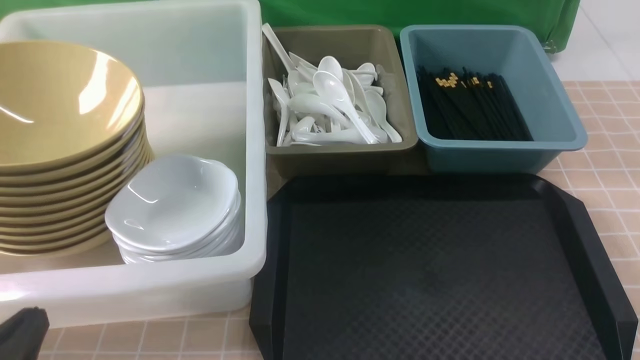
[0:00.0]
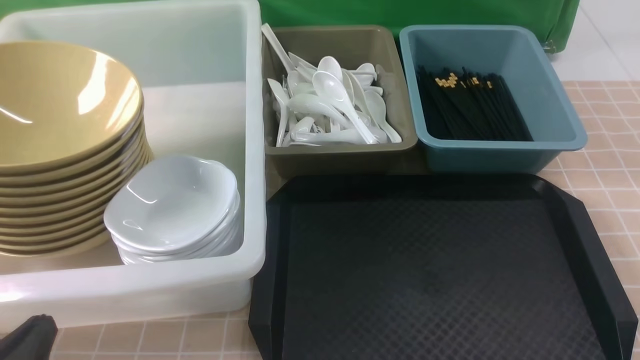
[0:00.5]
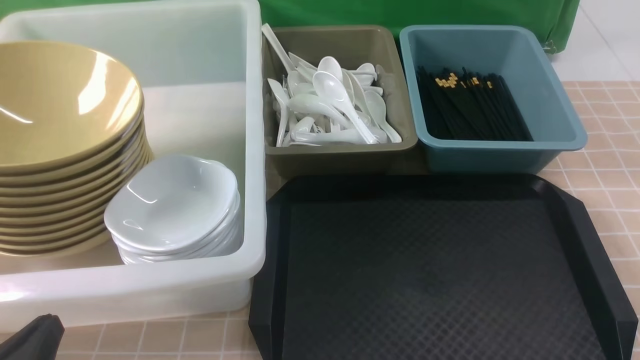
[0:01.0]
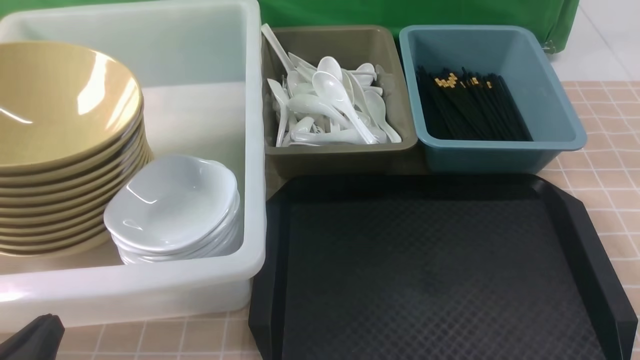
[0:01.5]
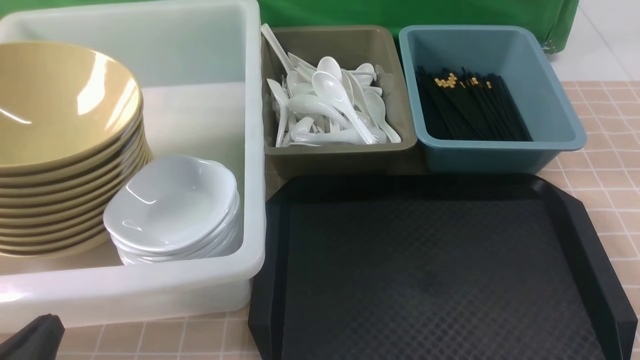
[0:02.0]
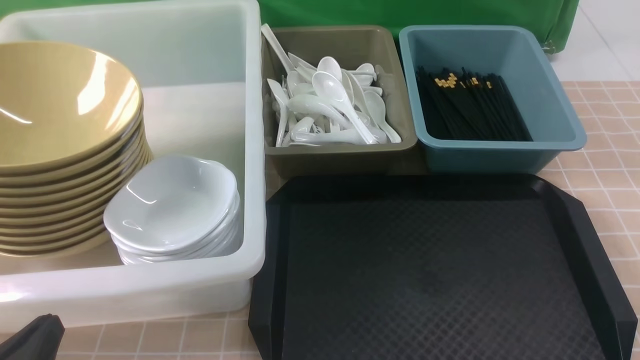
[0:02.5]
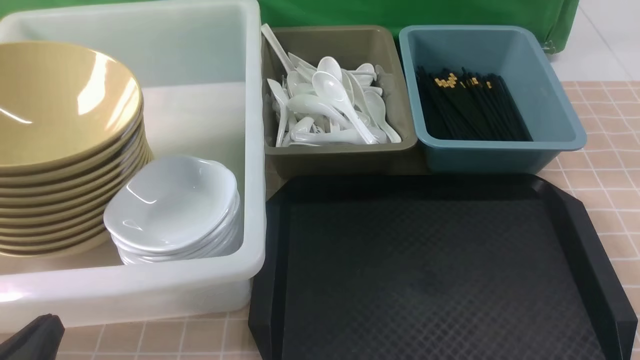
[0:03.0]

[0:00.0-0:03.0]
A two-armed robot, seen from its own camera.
Task of the whole recording: on brown table put chopsticks spoon bowls plates into blue grey white boxes.
0:00.0 to 0:01.5: The grippers make only small movements.
0:01.5 to 0:03.0: Neither gripper changes place.

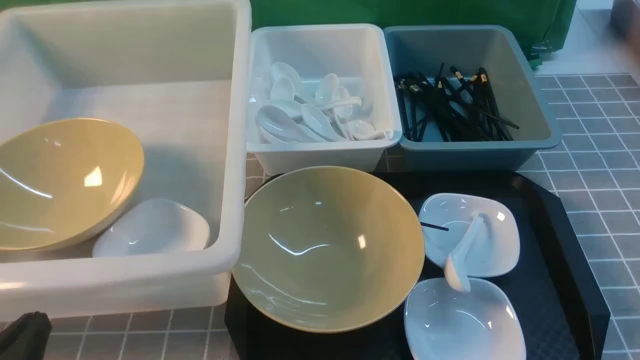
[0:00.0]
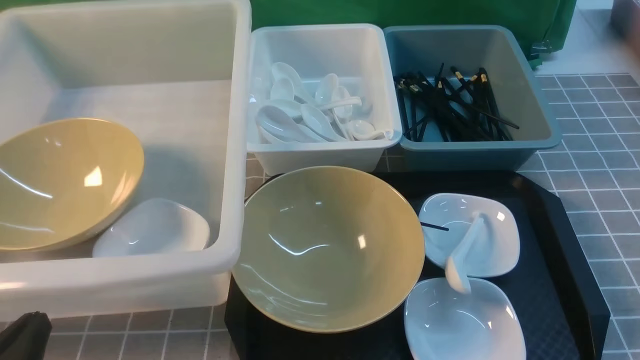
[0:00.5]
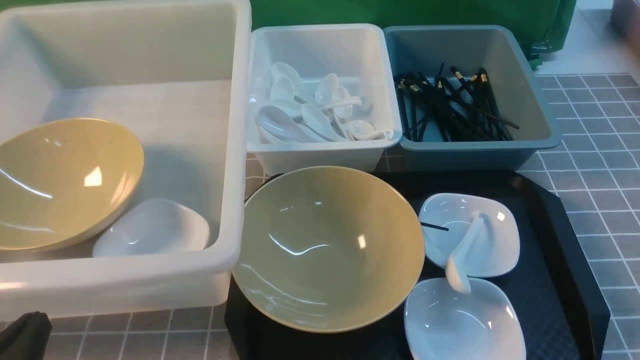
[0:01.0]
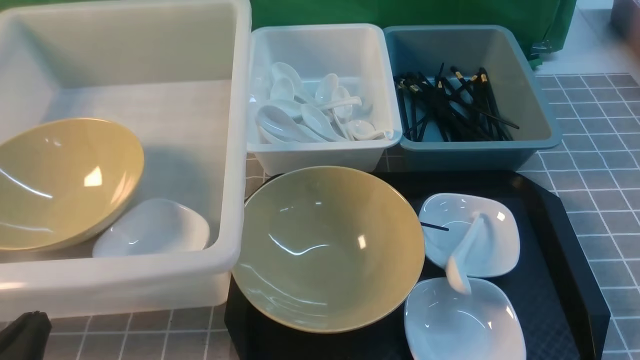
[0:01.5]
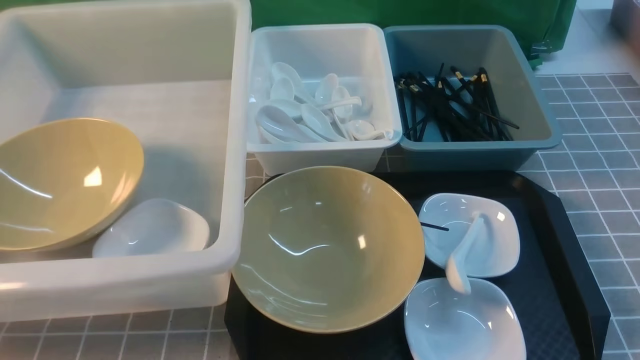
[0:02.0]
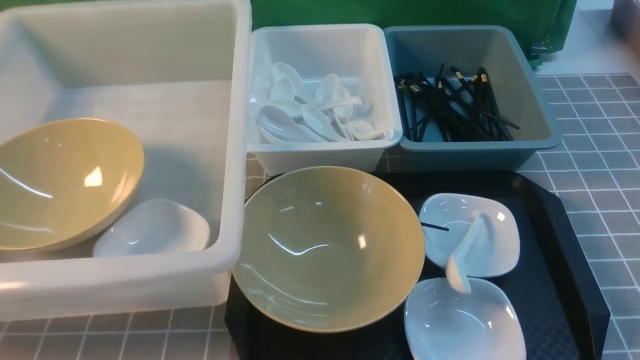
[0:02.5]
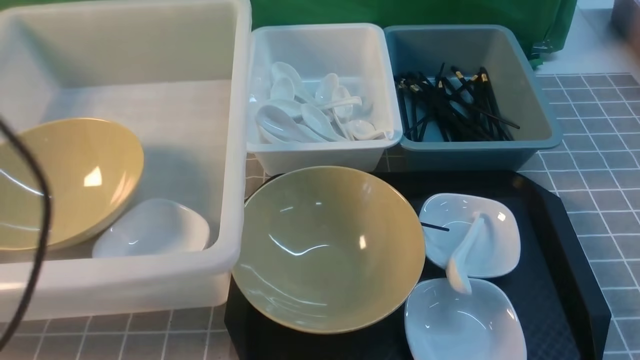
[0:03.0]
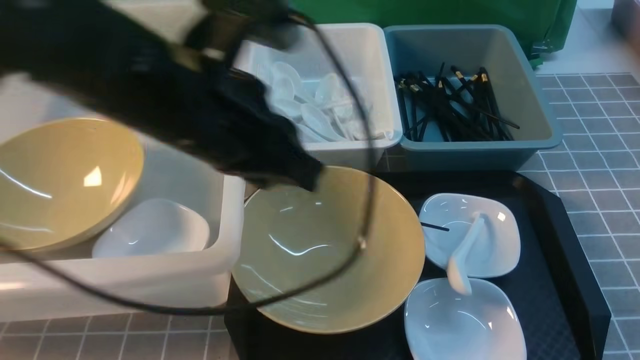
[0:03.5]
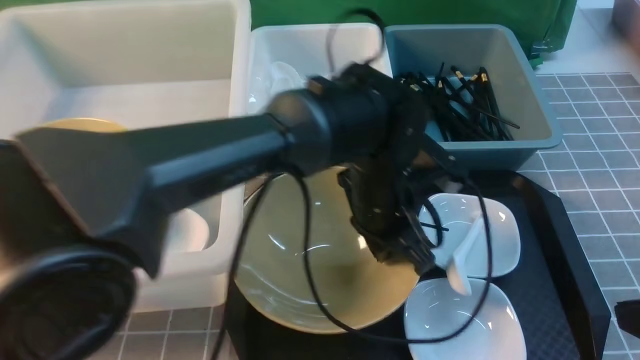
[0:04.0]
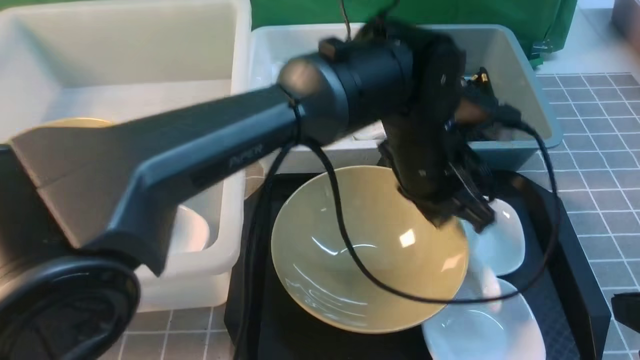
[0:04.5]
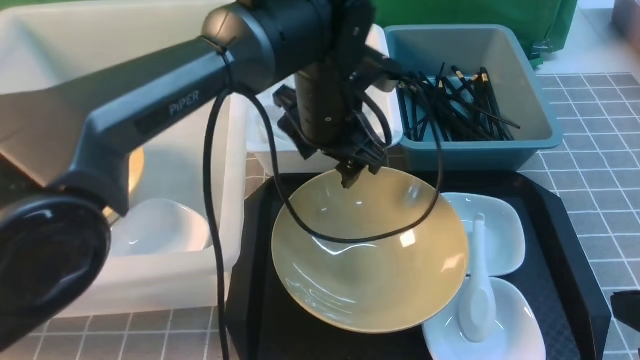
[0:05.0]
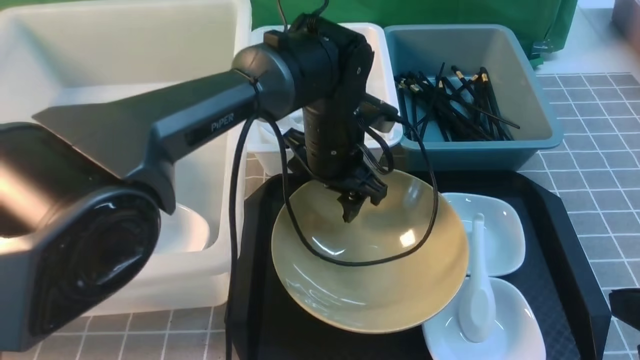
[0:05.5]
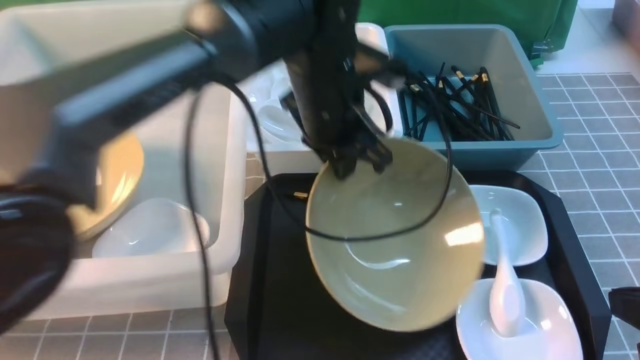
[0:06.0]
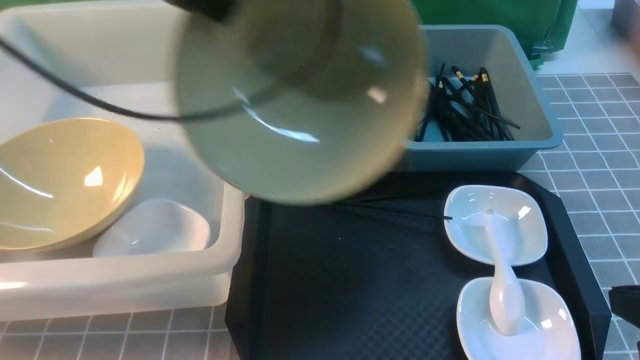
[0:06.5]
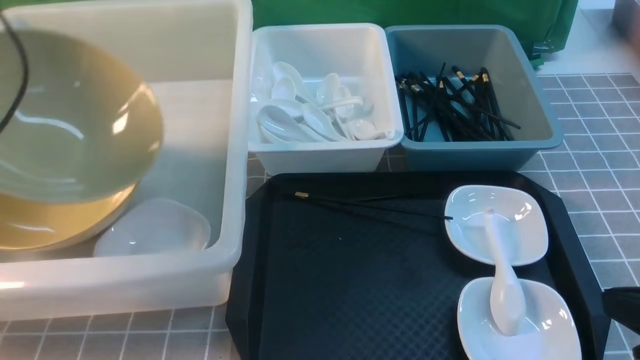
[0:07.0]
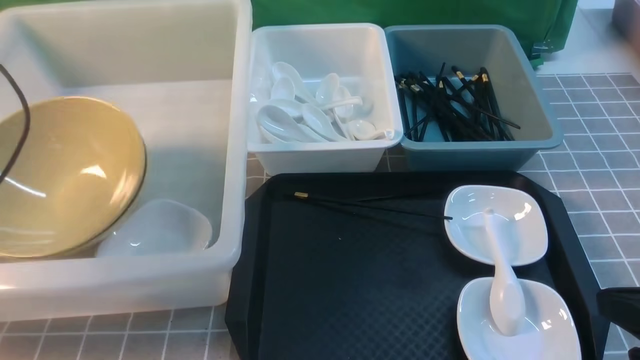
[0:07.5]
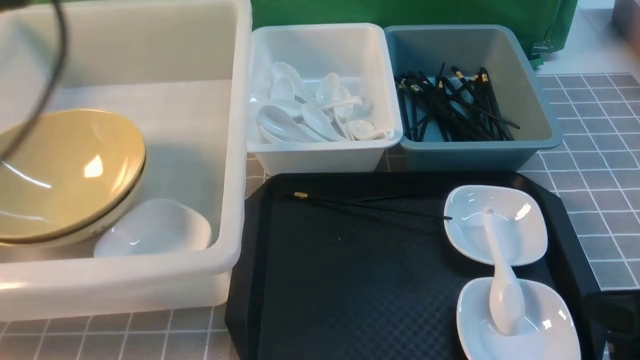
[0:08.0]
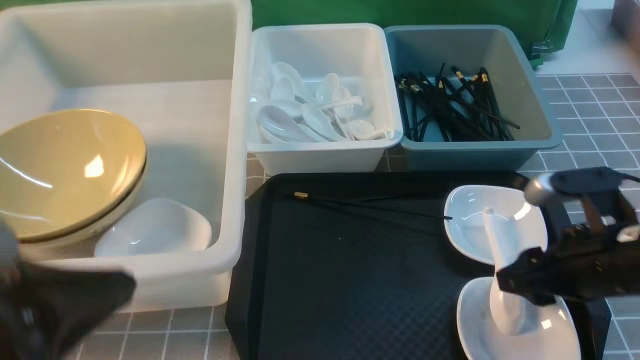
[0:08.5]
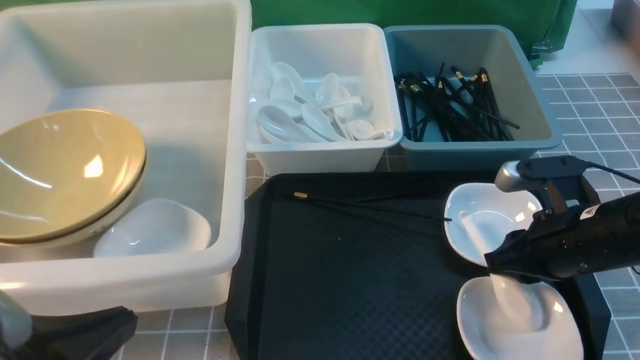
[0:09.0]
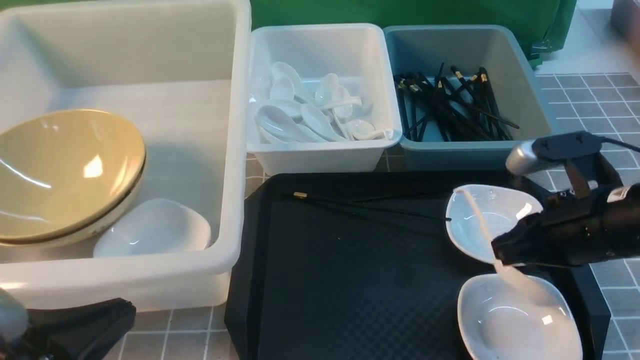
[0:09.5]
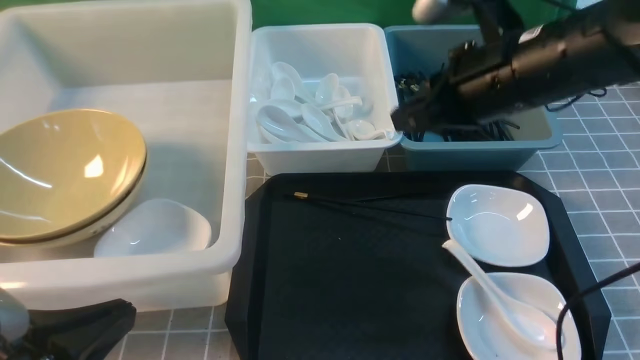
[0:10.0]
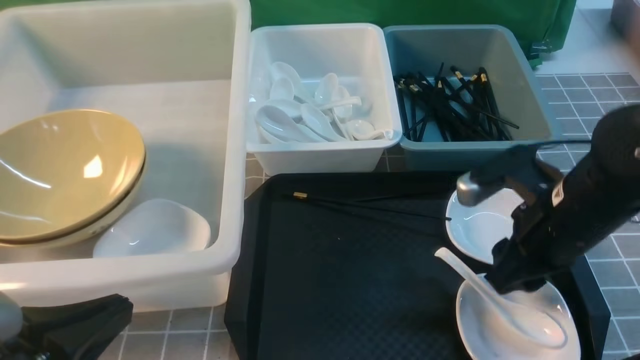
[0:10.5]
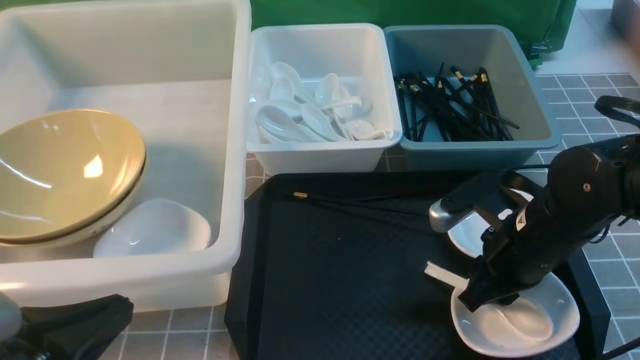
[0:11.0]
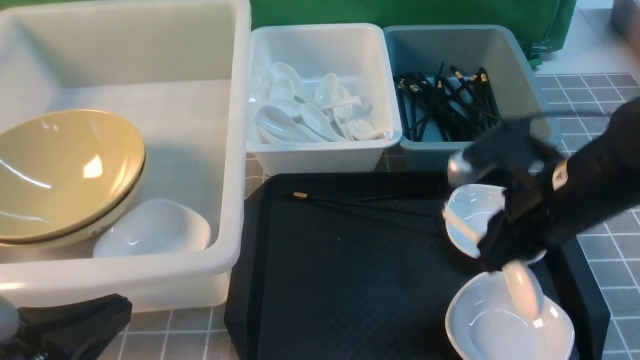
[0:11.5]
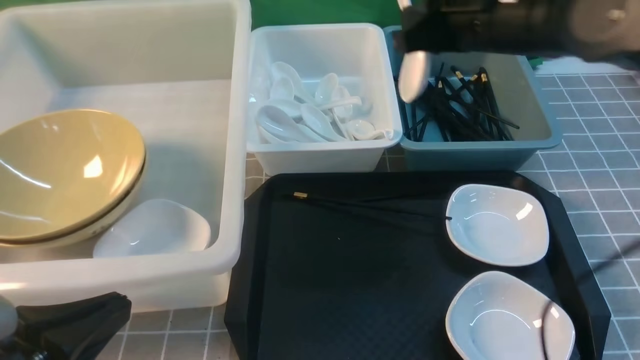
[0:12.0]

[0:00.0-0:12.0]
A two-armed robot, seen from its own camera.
Task of the whole recording: on grey table put chopsticks spoon bowls plates into blue grey white boxes.
Step, 0:00.0 to 0:06.0: use the left arm to grab the yellow noodle bowl on the left.
Step, 0:06.5 to 0:07.5: use the left arm to put the noodle bowl into the large storage box on the left.
Step, 0:08.0 to 0:11.0: use the right arm to grab the soup spoon in the middle.
0:02.0 to 0:04.0: The left gripper shifts approximately 40 cm to the right and forward. The right gripper heads forward, covering roughly 5 cm, moves about 10 cm upward and comes back, and closes its fingers.
0:04.0 to 0:06.0: The left gripper is displaced forward by approximately 5 cm, and opens and closes again.
0:06.0 to 0:08.0: The left gripper moves to the left, upward and backward, some 35 cm.
0:08.0 to 0:10.0: The left gripper moves downward, backward and to the right, about 25 cm, and closes; the right gripper shifts about 20 cm forward and to the left, and opens and closes again.
0:10.0 to 0:12.0: The right gripper reaches some 15 cm downward, then returns, and opens, then closes again.

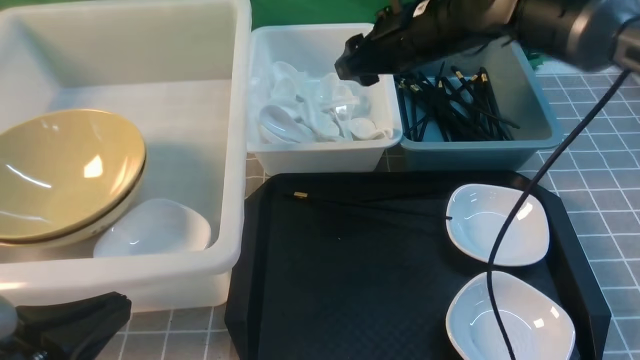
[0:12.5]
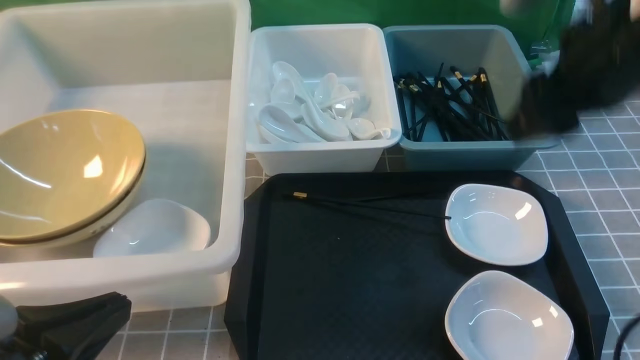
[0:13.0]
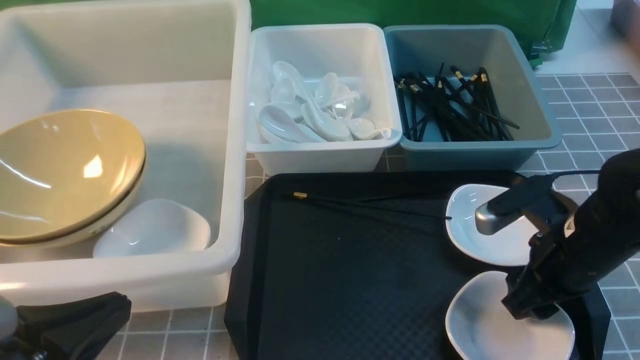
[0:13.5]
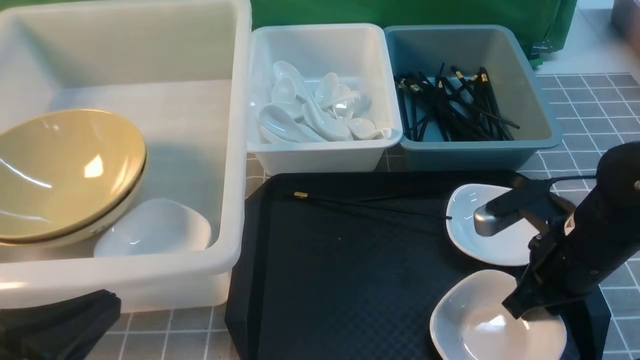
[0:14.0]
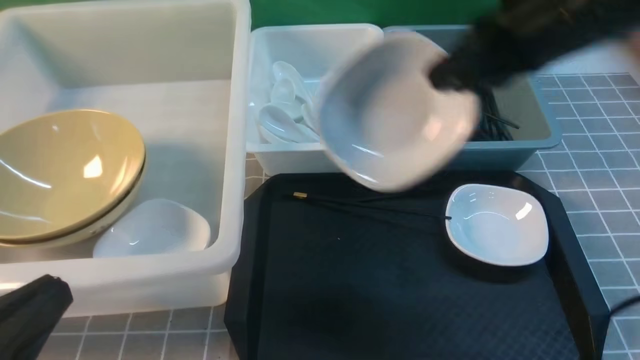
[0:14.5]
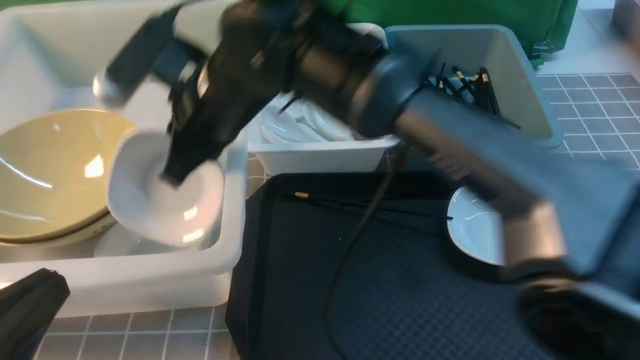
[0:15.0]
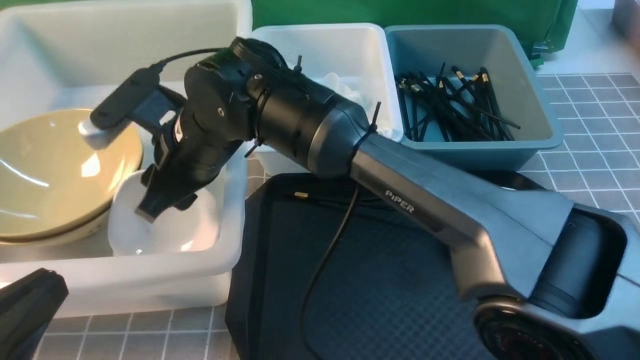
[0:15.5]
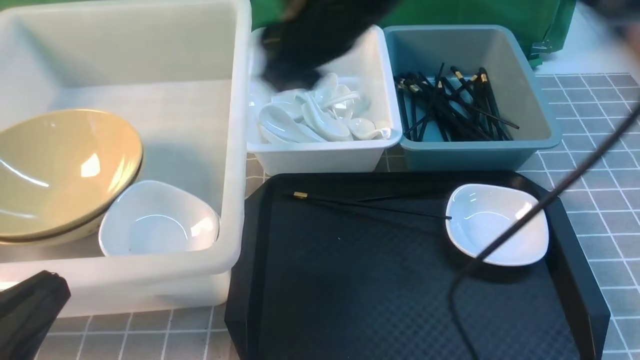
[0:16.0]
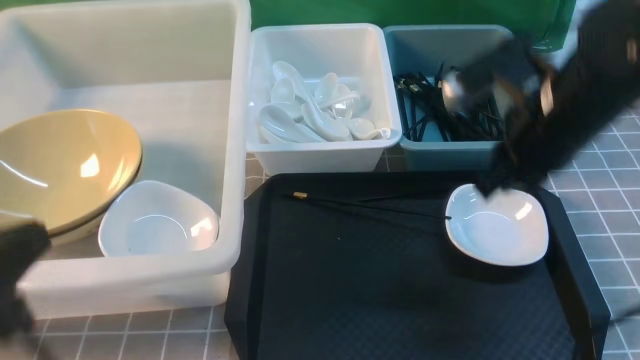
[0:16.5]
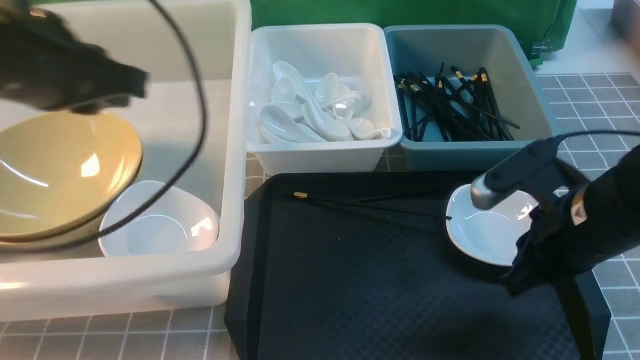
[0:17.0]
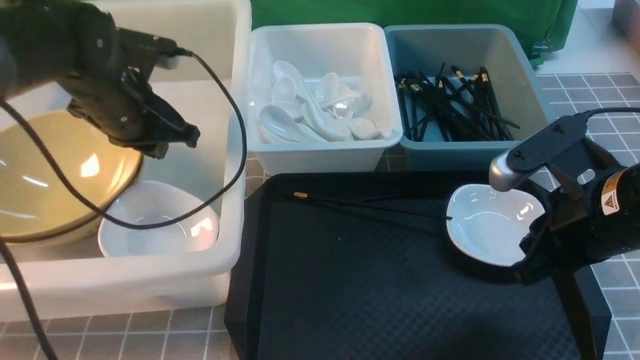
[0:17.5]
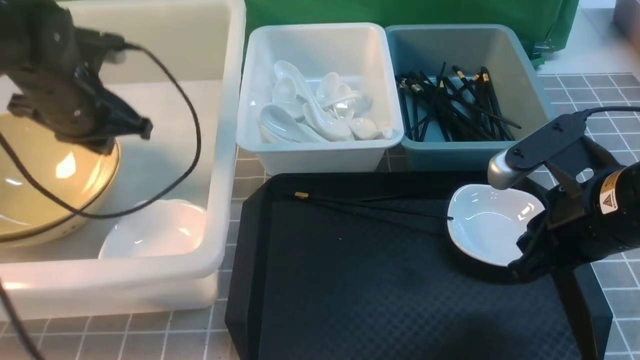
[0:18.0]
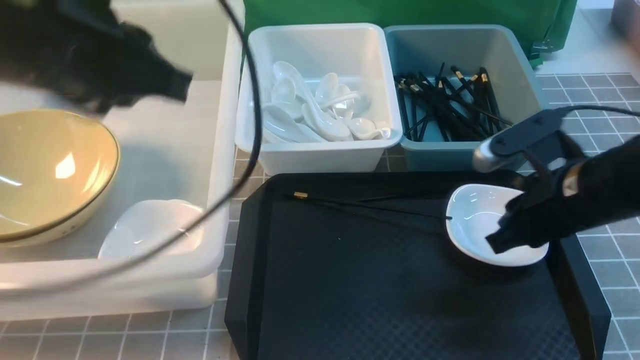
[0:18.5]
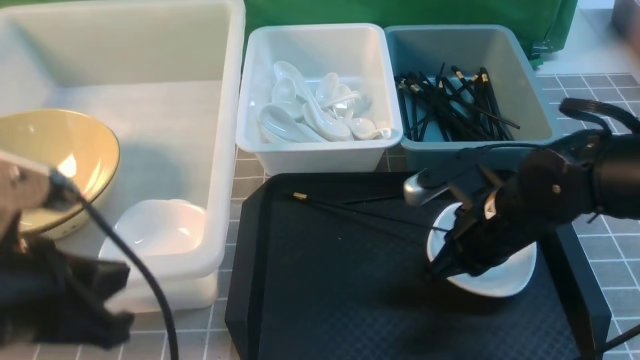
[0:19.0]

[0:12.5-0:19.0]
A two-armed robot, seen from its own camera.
Task of the whole recording: on grey table put chopsticks spoon bowls plates into blue grey white boxes.
Step, 0:13.0 to 0:14.0: use the right arm to grab the plate.
Step, 0:14.5 to 0:15.5: use the right arm to put the plate into the large storage box on the left.
0:12.5 to 0:14.5: The right gripper travels backward by approximately 15 cm, and closes.
0:14.5 to 0:17.0: The left gripper shifts roughly 25 cm forward and upward. The right gripper travels downward by about 15 cm, moves some 25 cm to the left and comes back, and opens, then closes again.
0:17.0 to 0:19.0: The right gripper ends up approximately 5 cm from where it was. Meanwhile the left gripper moves backward and downward, some 10 cm.
